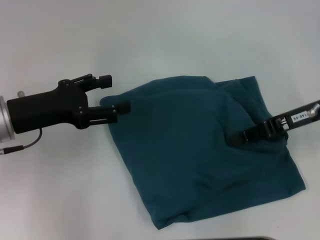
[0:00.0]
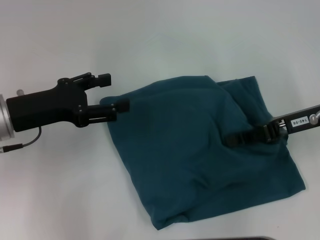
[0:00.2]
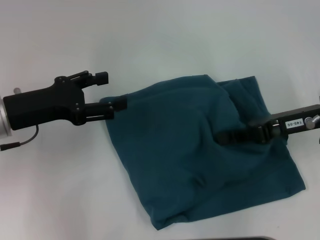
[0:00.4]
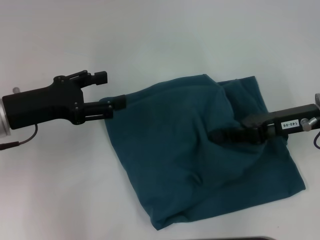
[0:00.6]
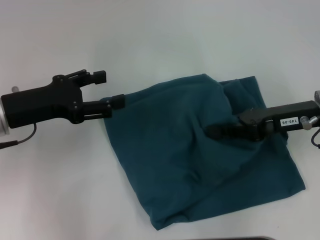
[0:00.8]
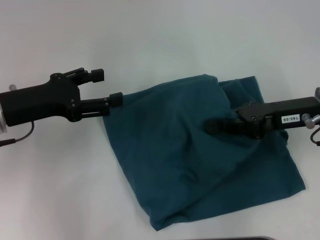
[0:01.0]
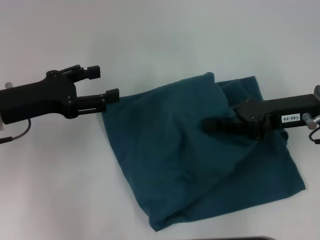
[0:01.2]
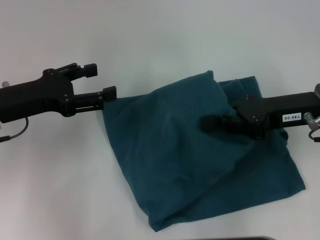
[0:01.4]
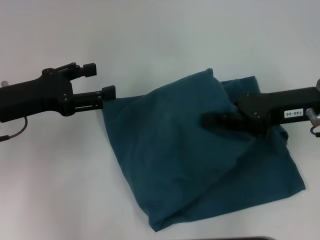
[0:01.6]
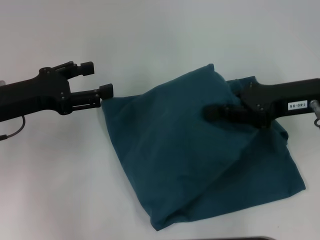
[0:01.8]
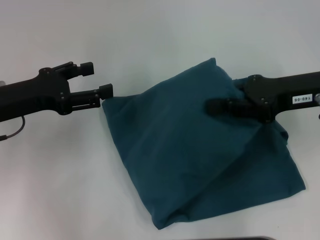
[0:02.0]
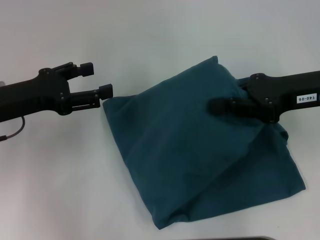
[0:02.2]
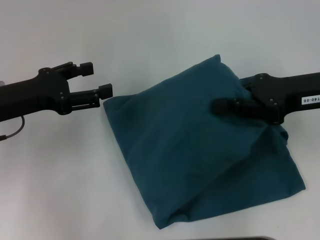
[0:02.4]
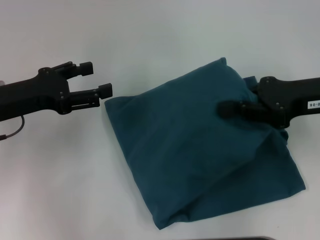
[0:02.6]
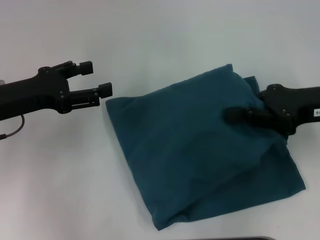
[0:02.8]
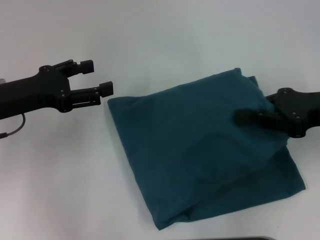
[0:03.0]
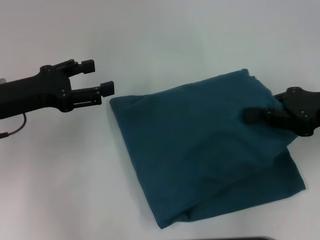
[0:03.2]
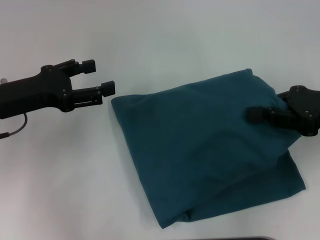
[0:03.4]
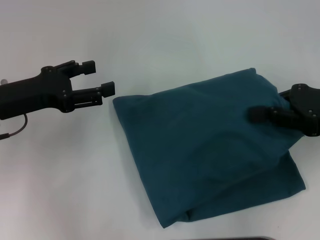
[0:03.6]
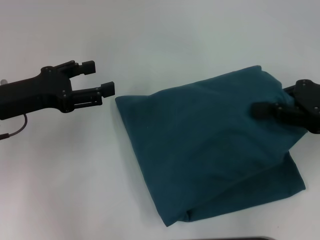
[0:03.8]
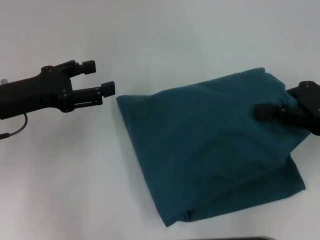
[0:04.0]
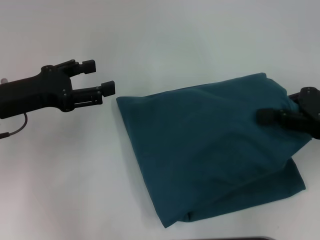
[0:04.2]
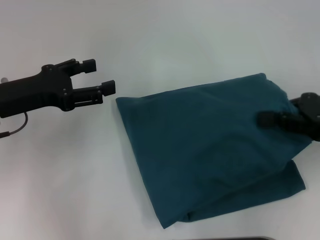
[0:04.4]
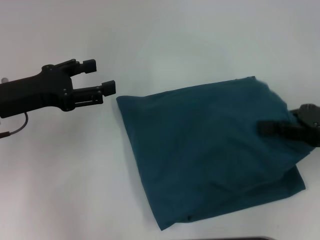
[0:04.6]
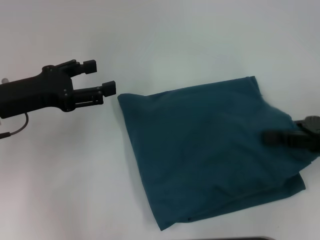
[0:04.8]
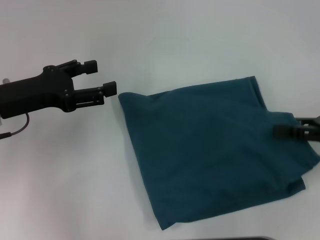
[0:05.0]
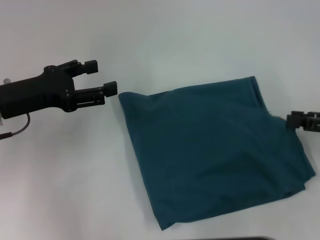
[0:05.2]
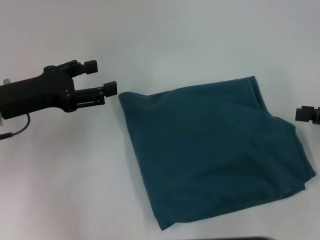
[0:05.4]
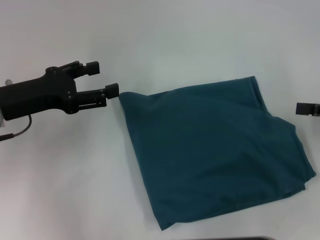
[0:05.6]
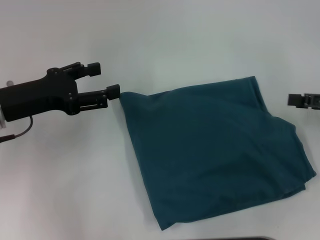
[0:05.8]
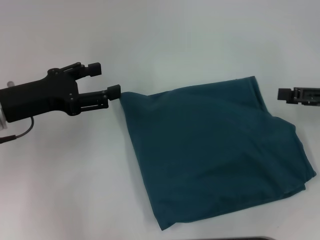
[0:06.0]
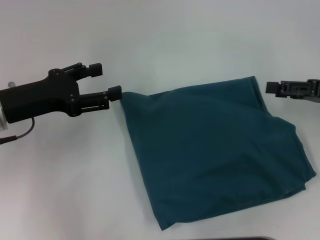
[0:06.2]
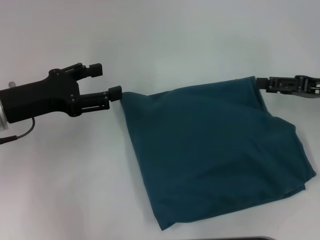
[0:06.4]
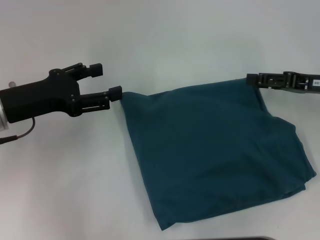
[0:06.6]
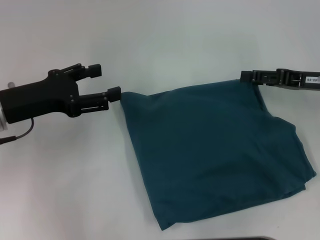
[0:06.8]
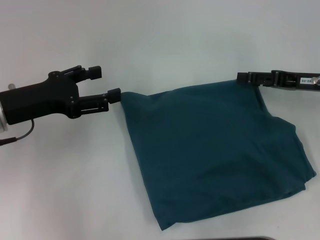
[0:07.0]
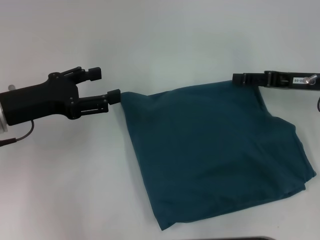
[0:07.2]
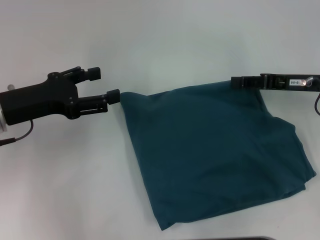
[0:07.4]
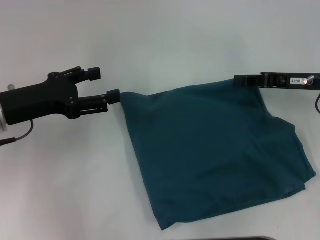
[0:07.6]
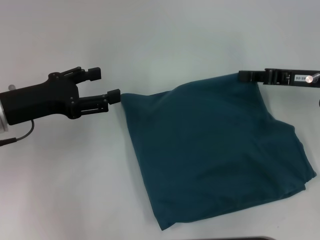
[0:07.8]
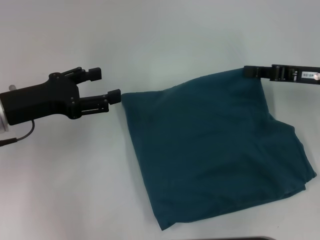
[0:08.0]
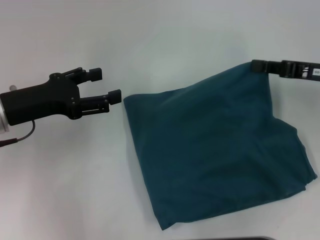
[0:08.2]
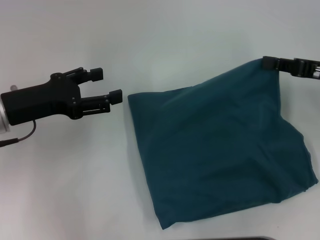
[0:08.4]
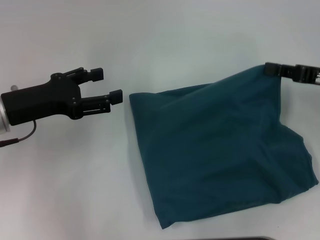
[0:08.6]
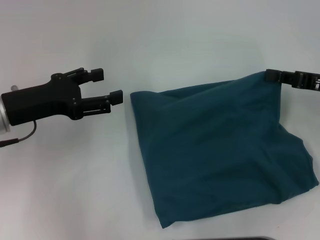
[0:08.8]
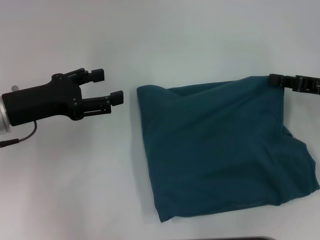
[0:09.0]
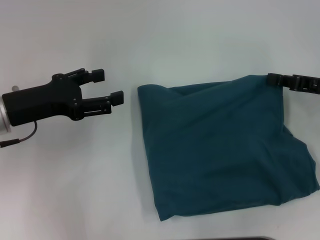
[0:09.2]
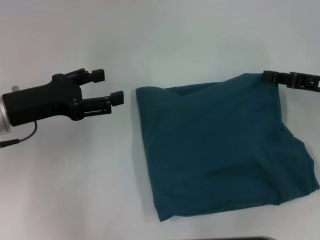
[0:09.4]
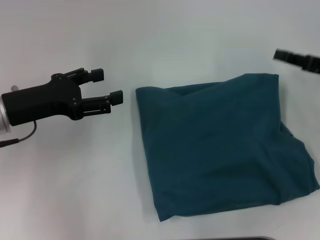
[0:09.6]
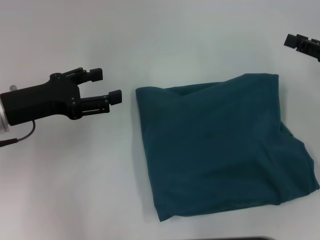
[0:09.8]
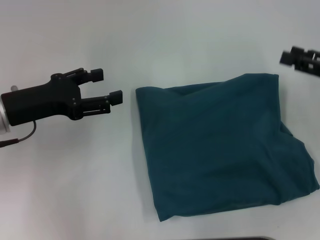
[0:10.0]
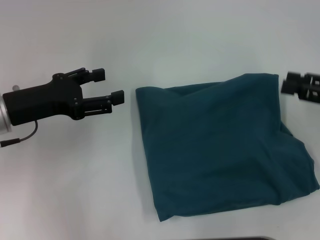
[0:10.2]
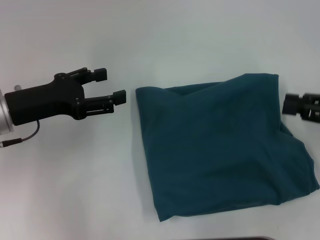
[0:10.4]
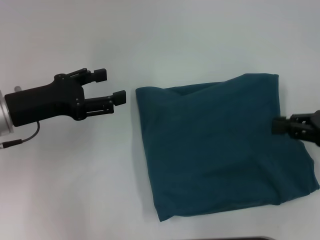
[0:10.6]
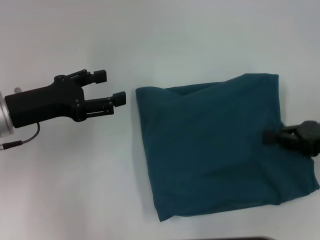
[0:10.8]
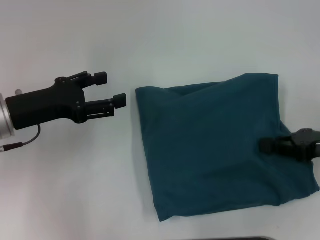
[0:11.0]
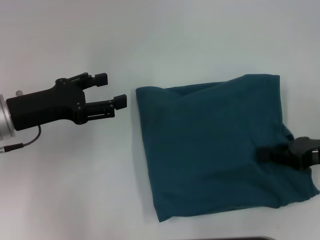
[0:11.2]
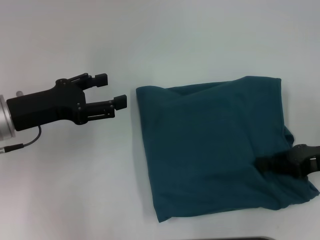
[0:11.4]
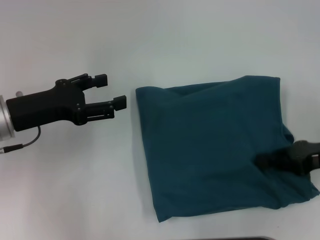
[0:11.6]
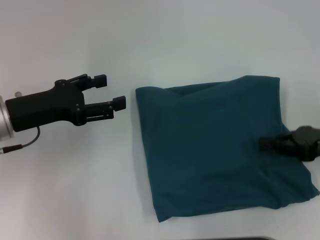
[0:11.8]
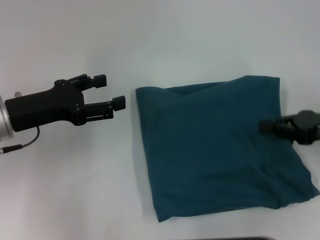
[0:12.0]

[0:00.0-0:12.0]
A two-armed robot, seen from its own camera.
0:01.6 to 0:03.0: The grippers stay close to where they were, moving slightly.
0:03.0 to 0:04.4: The grippers move only a little.
0:04.4 to 0:06.0: The right gripper moves approximately 5 cm, and opens.
0:06.0 to 0:07.6: The right gripper travels to the left by approximately 5 cm, and closes its fingers.
0:07.6 to 0:09.0: The right gripper moves some 5 cm.
0:09.0 to 0:10.4: The right gripper shifts approximately 5 cm backward, and opens up.
0:10.4 to 0:12.0: The right gripper closes.

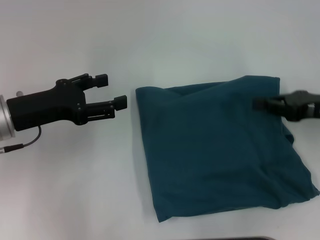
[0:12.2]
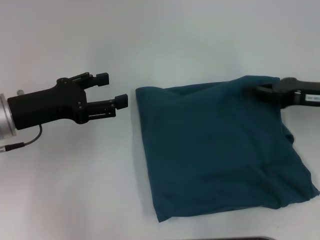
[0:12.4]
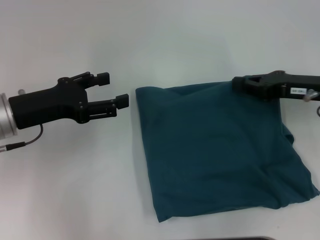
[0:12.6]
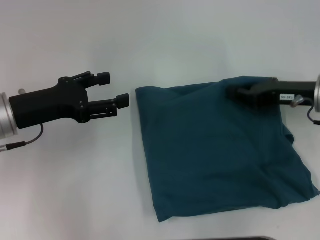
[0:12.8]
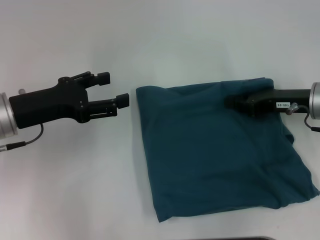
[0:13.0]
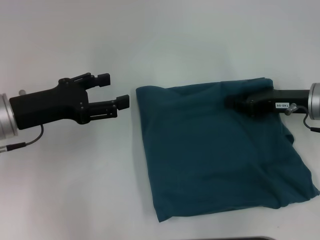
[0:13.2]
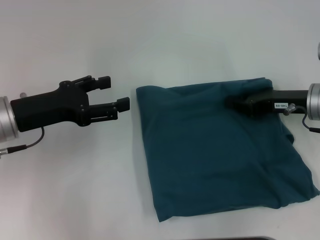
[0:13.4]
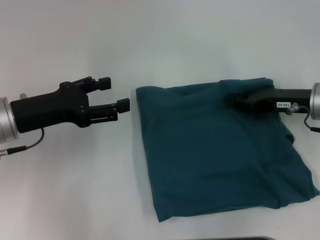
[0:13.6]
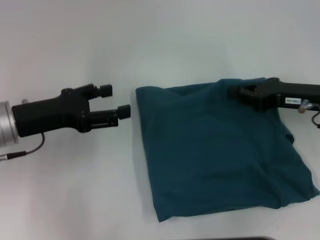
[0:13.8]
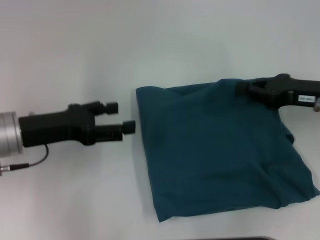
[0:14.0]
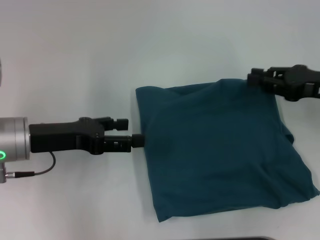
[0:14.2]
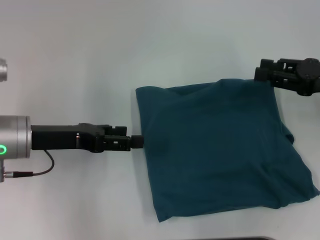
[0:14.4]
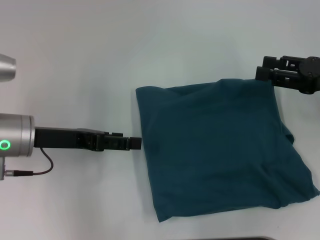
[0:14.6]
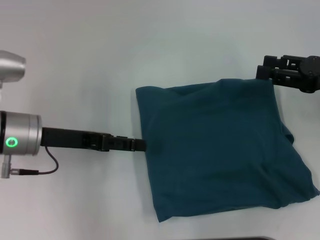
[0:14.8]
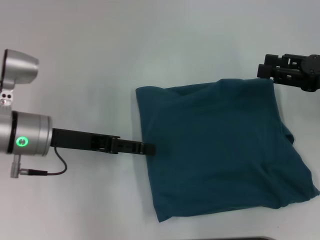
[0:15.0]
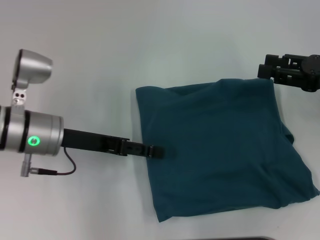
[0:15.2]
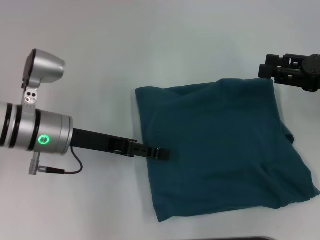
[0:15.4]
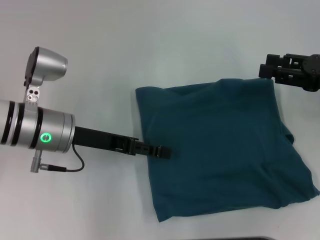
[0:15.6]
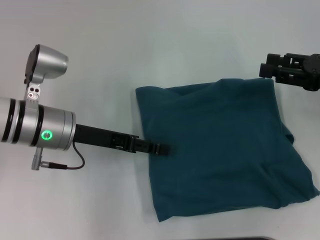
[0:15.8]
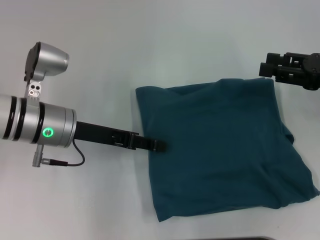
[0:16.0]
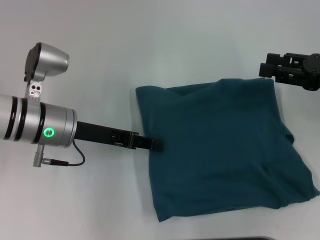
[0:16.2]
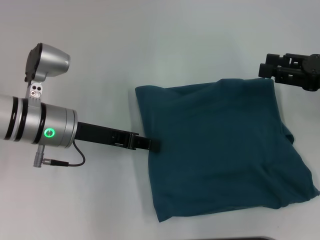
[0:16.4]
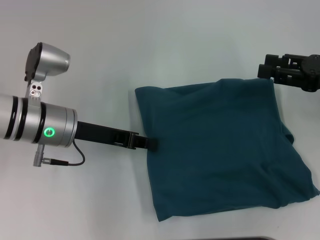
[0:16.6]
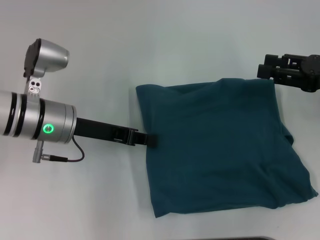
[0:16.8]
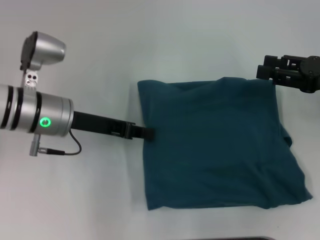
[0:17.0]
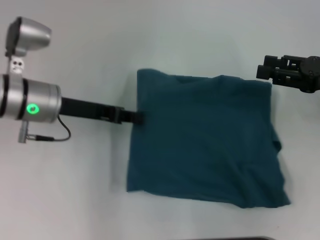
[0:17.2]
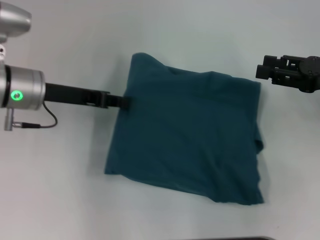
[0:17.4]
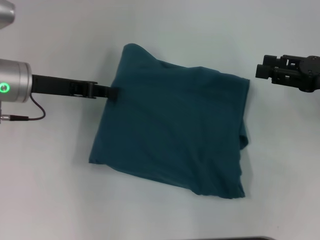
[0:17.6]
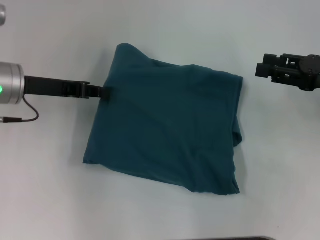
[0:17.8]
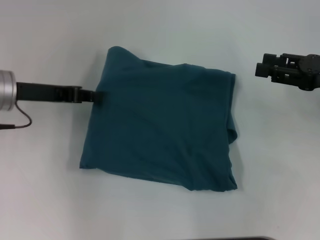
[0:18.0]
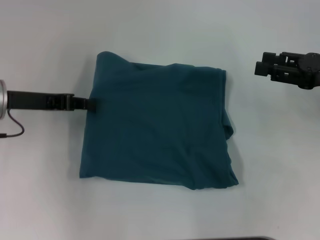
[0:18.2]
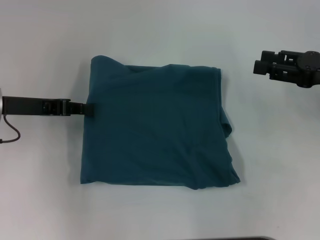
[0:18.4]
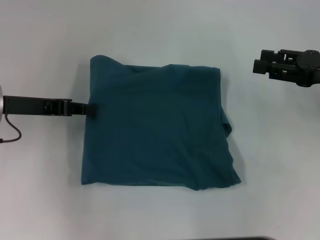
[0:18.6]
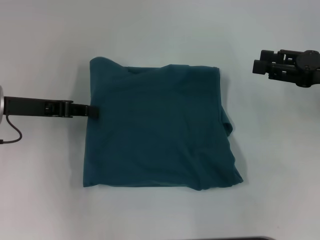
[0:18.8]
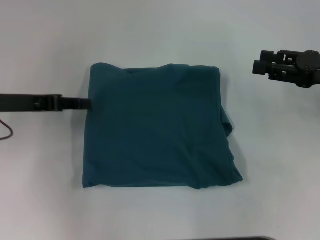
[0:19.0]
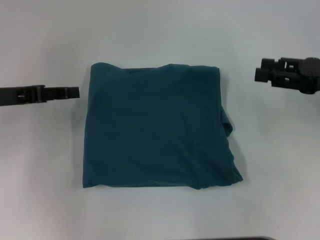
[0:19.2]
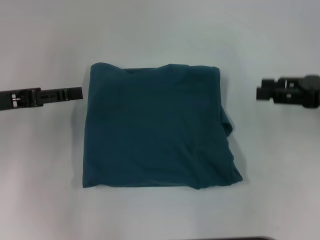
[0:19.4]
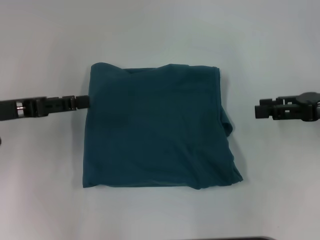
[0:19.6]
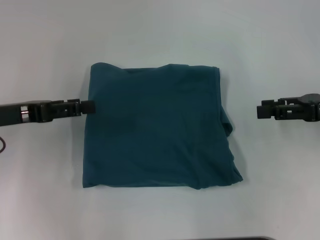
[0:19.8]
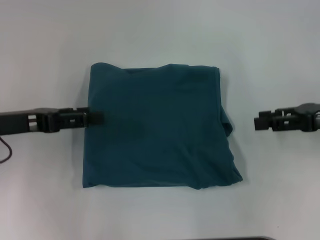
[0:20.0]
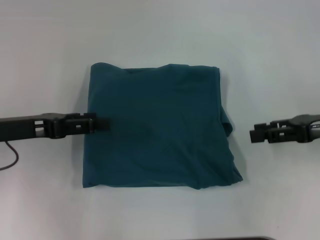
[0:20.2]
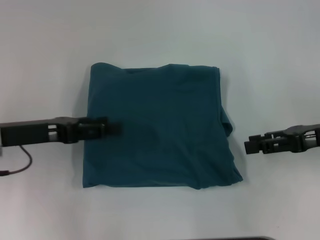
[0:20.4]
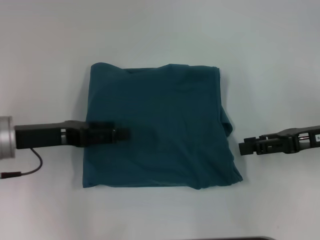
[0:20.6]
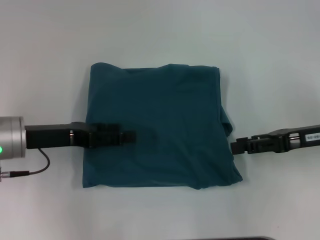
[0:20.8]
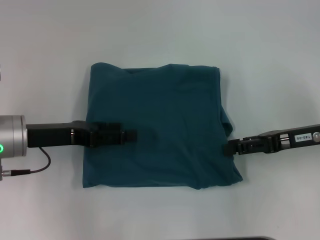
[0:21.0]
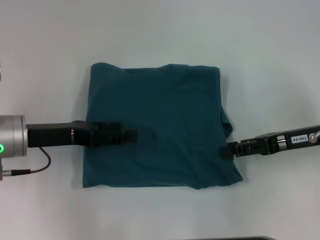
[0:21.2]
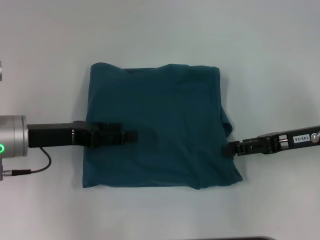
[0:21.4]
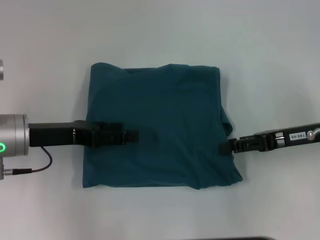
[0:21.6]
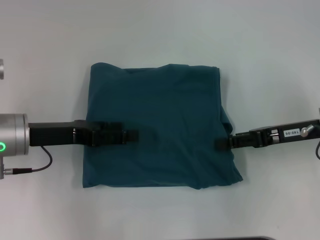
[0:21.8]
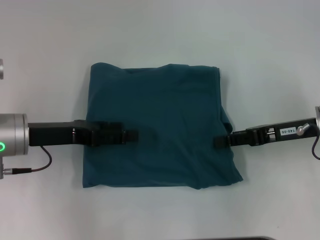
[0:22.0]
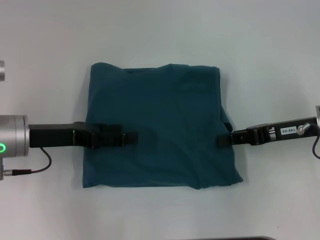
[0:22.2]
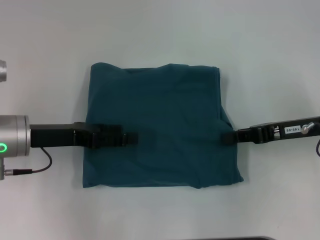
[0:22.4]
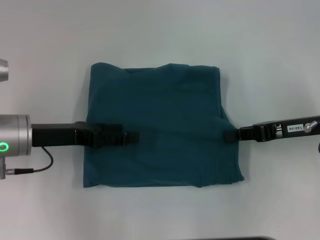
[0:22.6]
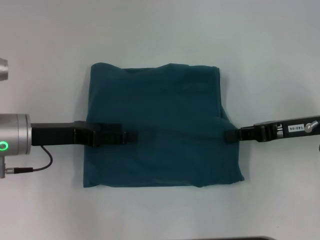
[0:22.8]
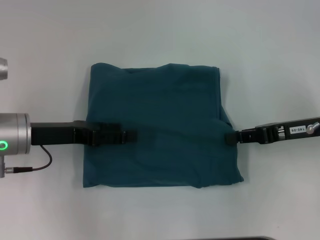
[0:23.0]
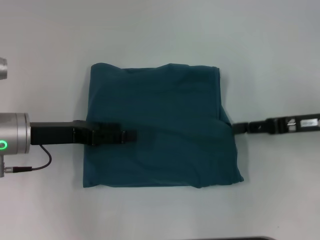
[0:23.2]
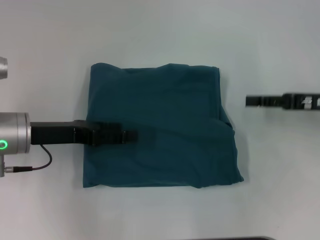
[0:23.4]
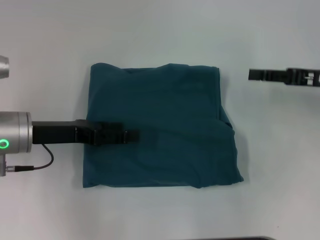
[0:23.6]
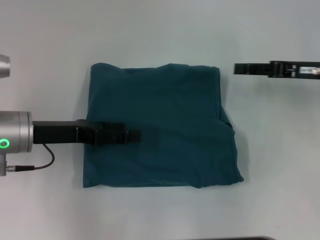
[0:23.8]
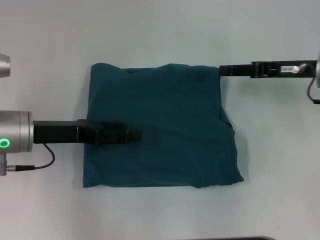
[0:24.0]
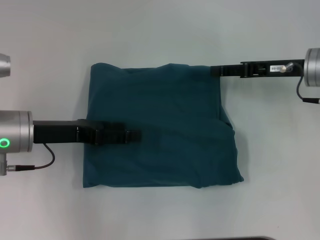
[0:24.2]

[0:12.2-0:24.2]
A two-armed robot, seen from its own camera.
0:13.8 to 0:15.2: The right gripper ends up some 5 cm from where it was, and opens. Meanwhile the left gripper shifts about 5 cm to the right.
0:15.2 to 0:16.6: The left gripper closes up.
0:16.6 to 0:18.2: The left gripper goes some 10 cm to the left.
0:18.2 to 0:19.8: The left gripper ends up about 5 cm from where it was, and opens up.
0:19.8 to 0:21.2: The left gripper travels to the right by some 5 cm. The right gripper ends up roughly 5 cm from where it was.
0:21.2 to 0:22.6: The right gripper closes.
0:22.6 to 0:24.2: The right gripper shifts about 5 cm forward, and opens.
